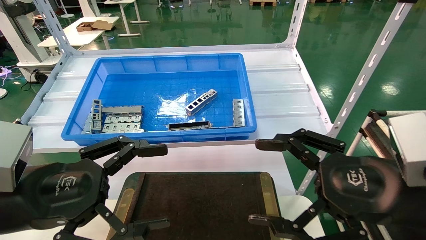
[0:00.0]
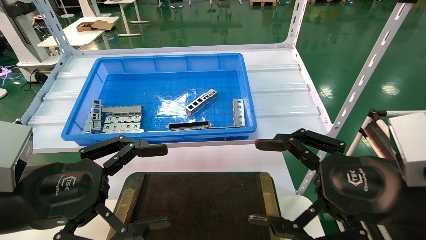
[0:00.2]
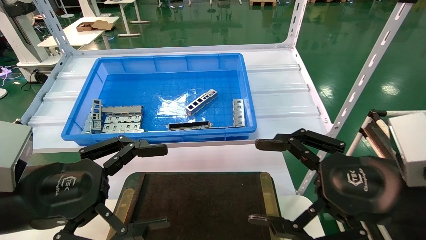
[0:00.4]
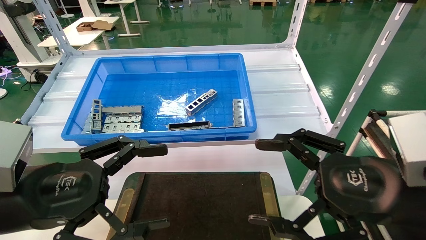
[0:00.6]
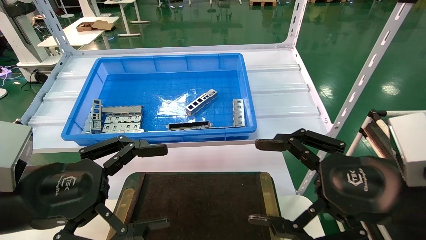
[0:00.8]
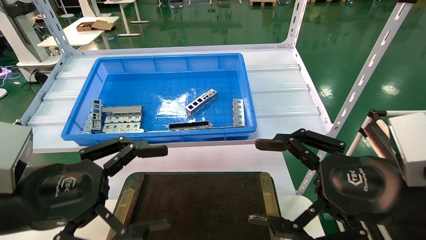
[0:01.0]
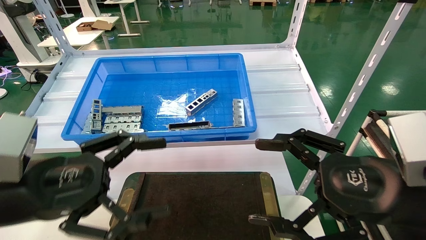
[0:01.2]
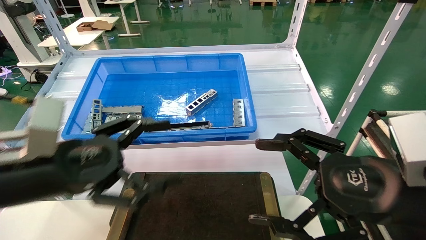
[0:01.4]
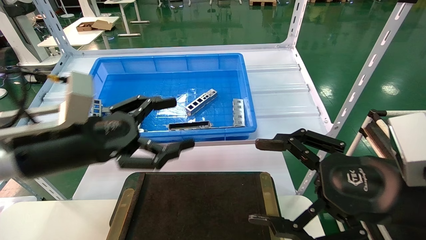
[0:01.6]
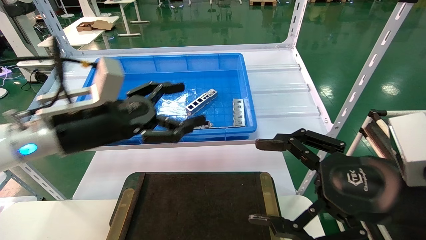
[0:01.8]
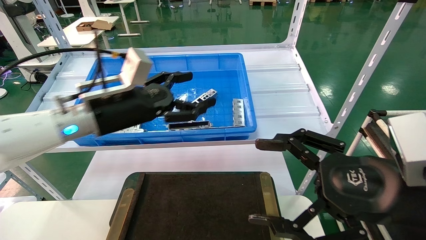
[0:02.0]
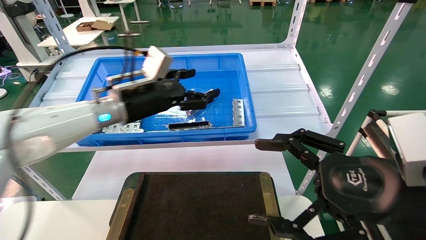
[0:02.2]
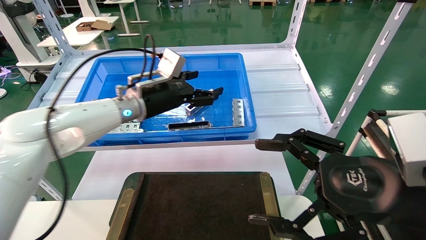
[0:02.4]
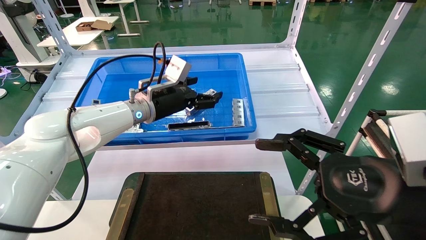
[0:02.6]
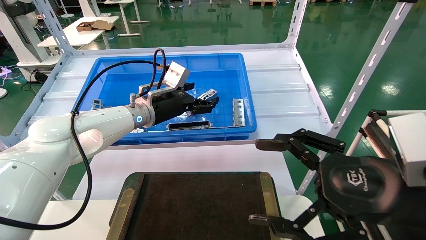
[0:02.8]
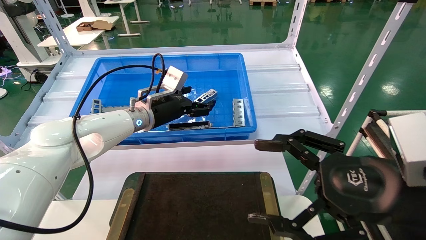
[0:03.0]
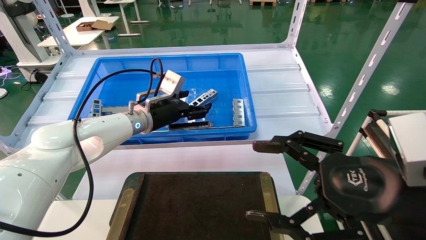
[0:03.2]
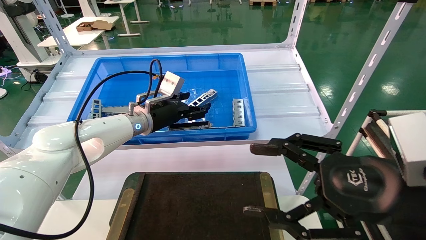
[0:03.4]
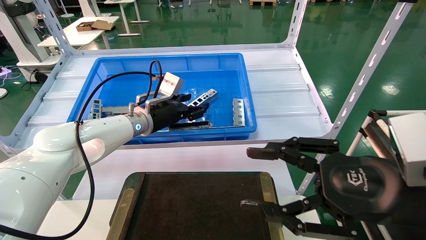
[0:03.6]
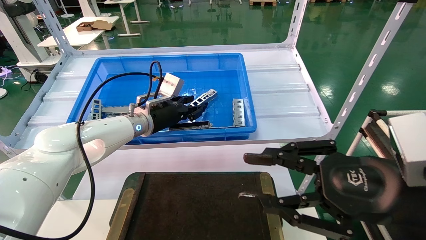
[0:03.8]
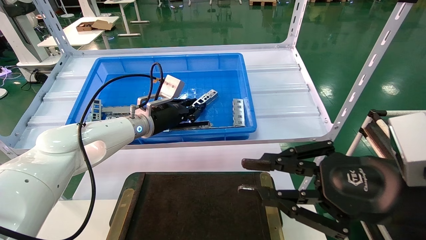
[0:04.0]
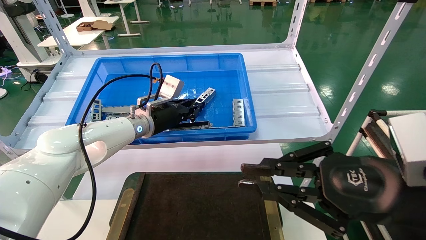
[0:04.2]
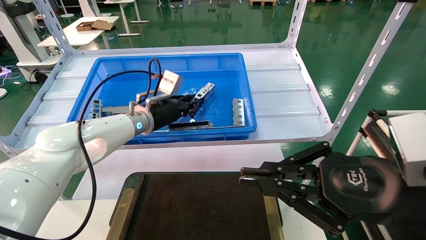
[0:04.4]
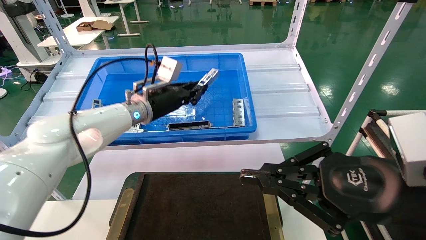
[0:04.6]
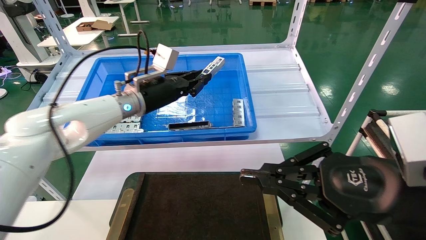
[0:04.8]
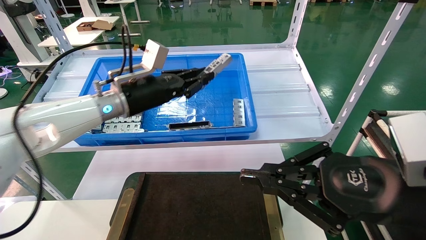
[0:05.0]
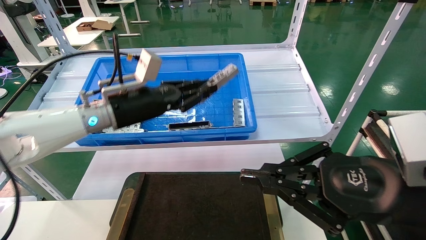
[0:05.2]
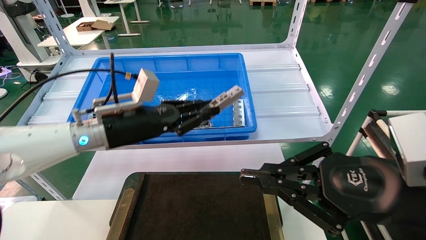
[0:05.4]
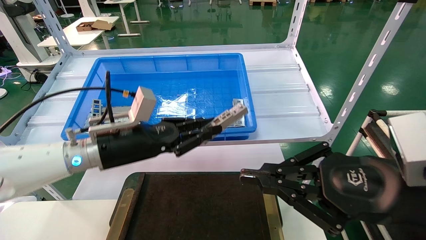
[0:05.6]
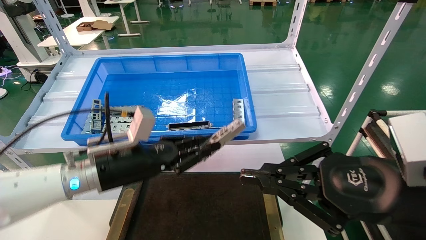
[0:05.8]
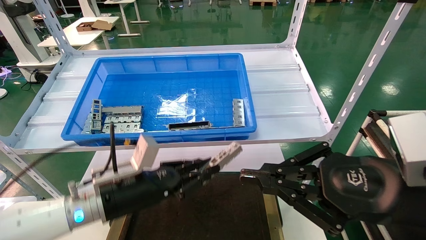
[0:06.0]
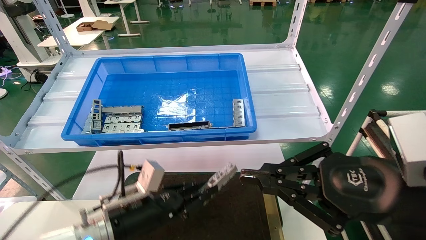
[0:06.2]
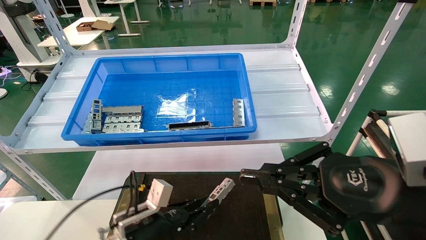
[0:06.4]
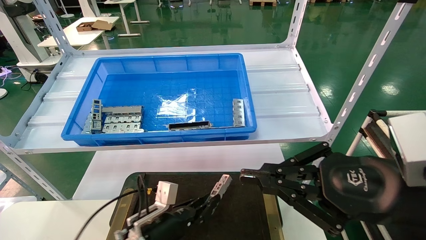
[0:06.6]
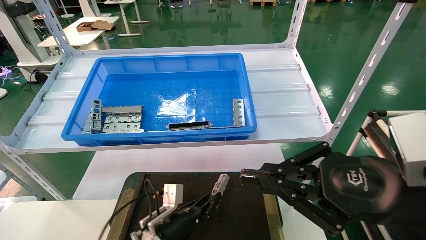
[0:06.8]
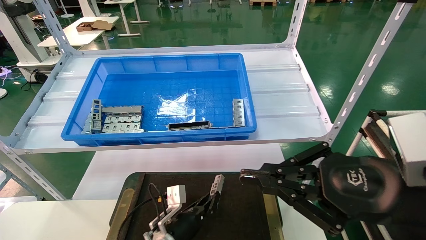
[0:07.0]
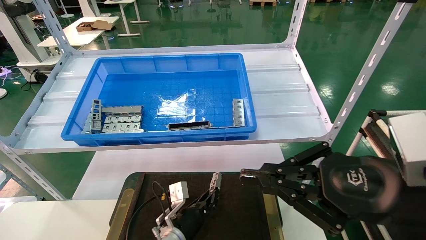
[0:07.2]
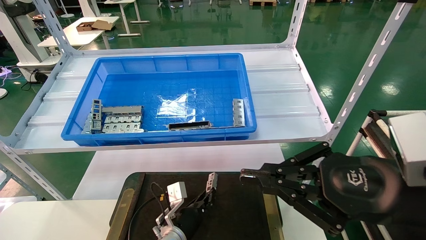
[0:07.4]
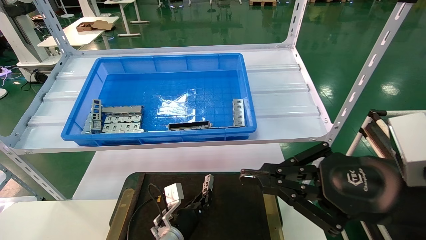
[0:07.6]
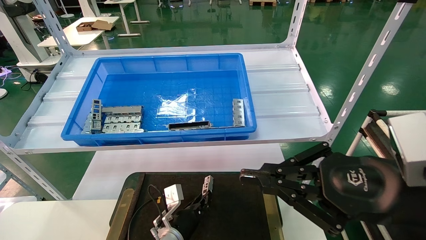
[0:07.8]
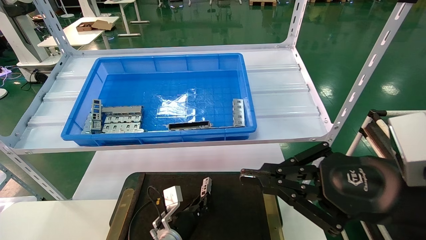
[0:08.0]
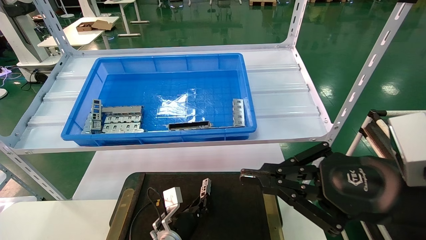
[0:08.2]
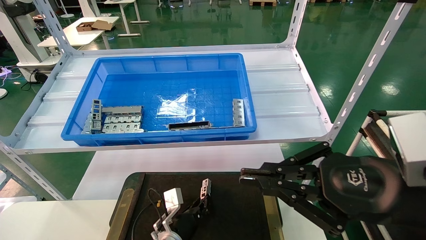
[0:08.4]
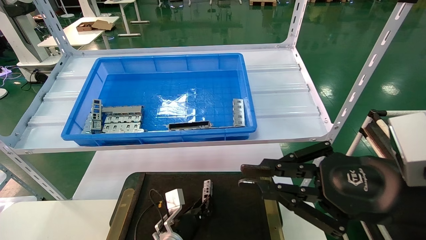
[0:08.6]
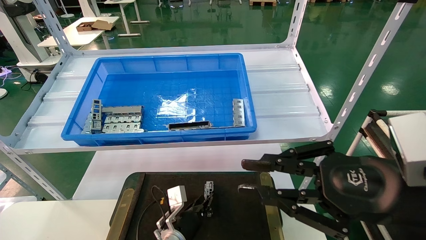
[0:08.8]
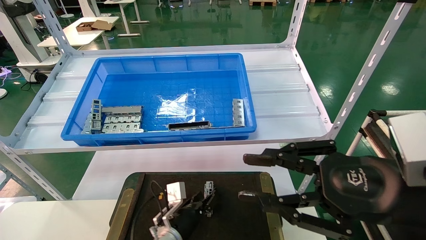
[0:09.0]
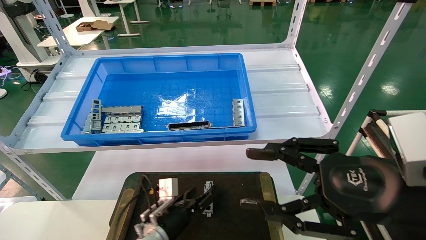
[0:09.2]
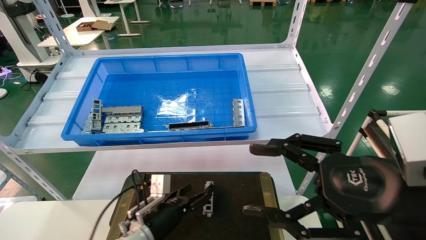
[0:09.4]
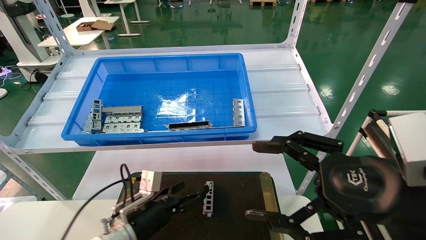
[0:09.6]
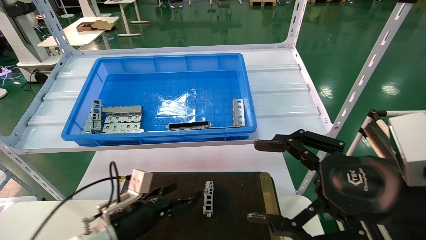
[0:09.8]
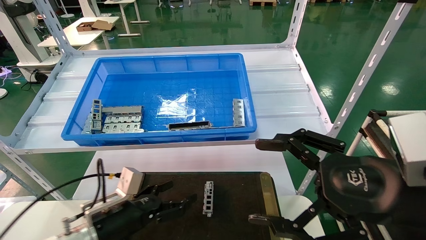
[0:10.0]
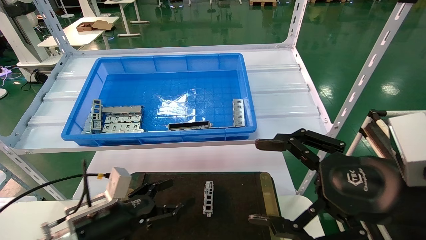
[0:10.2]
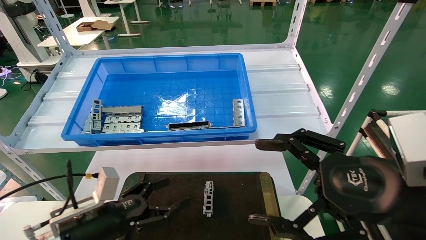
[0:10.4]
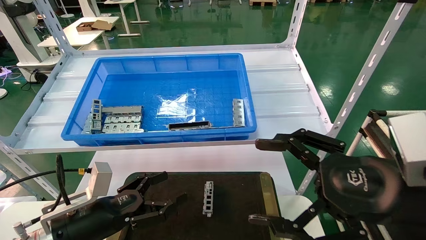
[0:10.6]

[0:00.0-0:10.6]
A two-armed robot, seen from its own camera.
Task of the whole recording: Grasp the part with one hand and place it on the black container.
Step, 0:01.4 to 0:04.0: Pick up the front USB bracket from the feeding area.
Step, 0:04.2 to 0:08.6: Place the front USB bracket into the box.
0:00.0 to 0:01.6: The left gripper heads forward, covering some 10 cm.
0:01.6 to 0:03.0: The left gripper travels forward by about 20 cm.
0:03.0 to 0:04.6: The right gripper closes up, while the left gripper closes up.
0:04.6 to 0:06.0: The left gripper travels backward and downward by approximately 20 cm.
0:06.0 to 0:07.6: The left gripper travels downward, to the right and forward by some 20 cm.
0:07.6 to 0:09.0: There are only small adjustments of the grippers.
0:09.0 to 0:10.6: The left gripper is displaced to the left, upward and backward by approximately 25 cm, and opens, while the right gripper opens up.

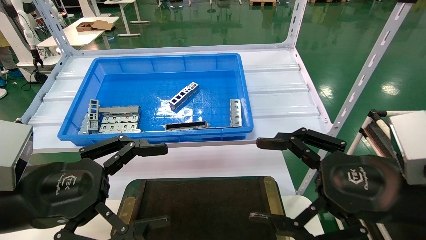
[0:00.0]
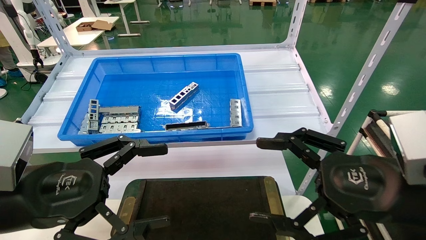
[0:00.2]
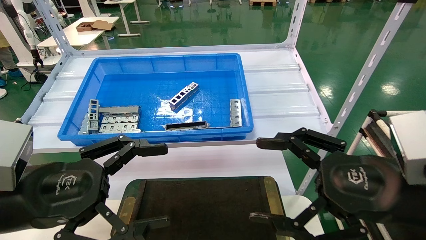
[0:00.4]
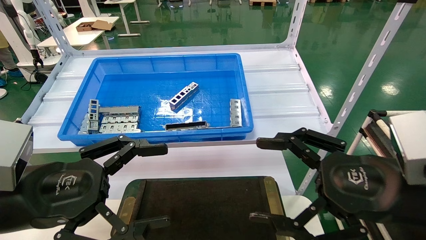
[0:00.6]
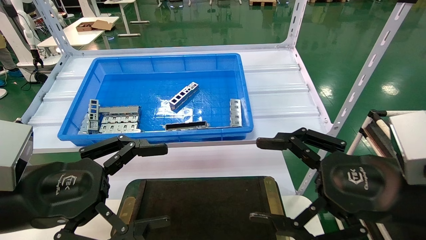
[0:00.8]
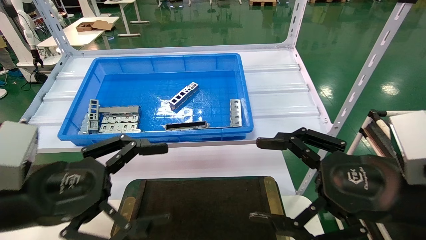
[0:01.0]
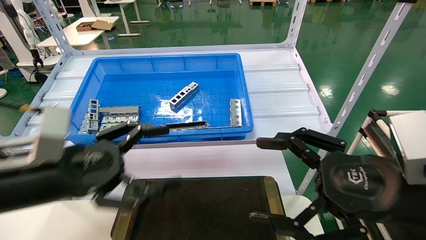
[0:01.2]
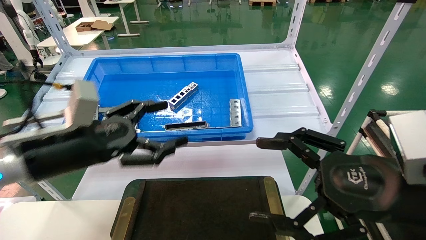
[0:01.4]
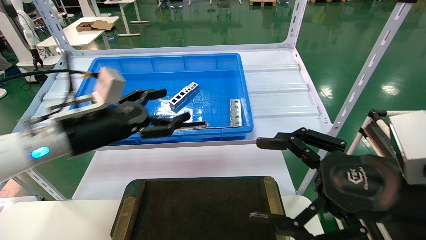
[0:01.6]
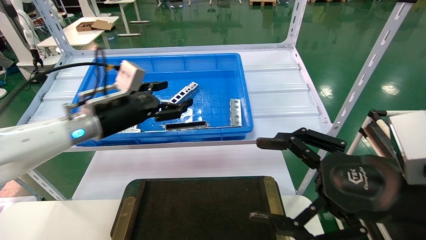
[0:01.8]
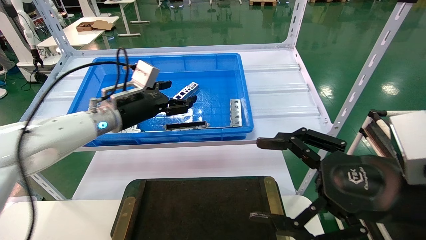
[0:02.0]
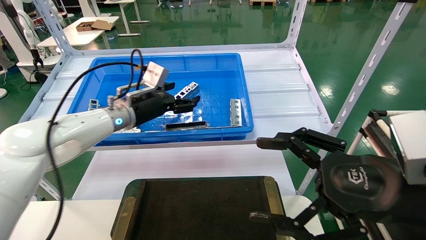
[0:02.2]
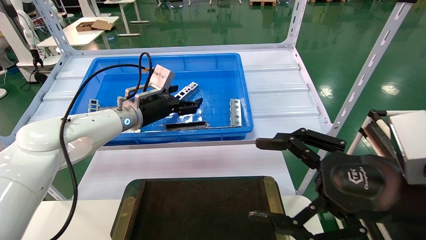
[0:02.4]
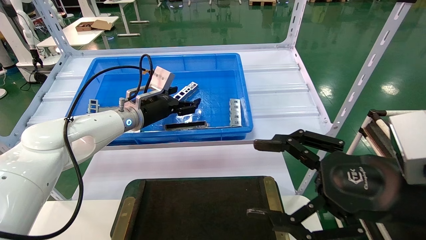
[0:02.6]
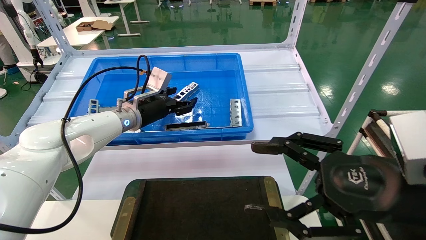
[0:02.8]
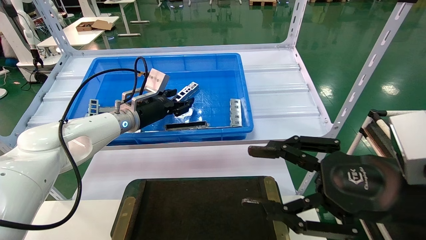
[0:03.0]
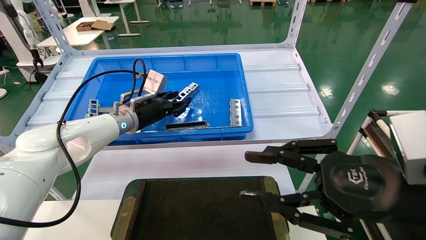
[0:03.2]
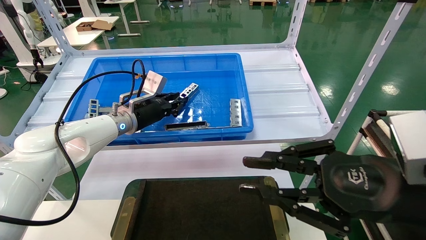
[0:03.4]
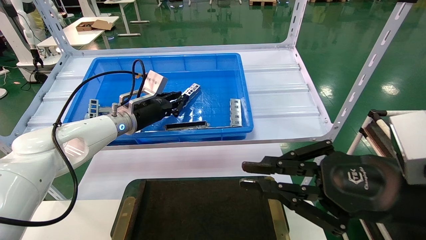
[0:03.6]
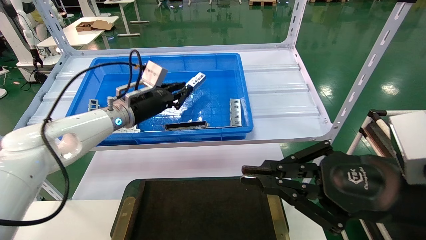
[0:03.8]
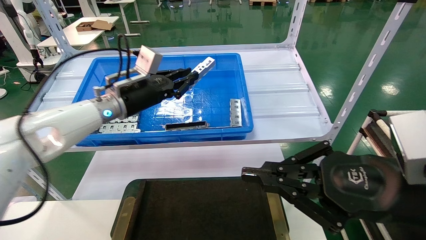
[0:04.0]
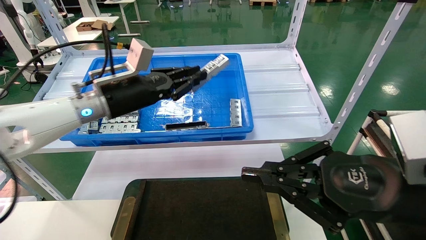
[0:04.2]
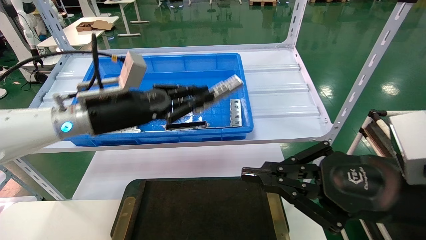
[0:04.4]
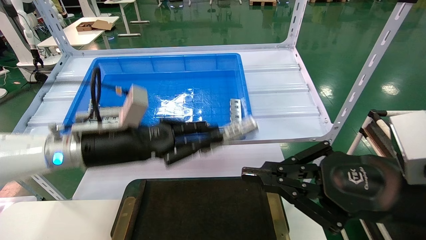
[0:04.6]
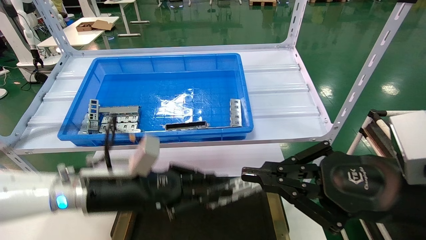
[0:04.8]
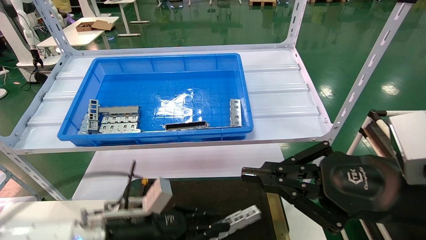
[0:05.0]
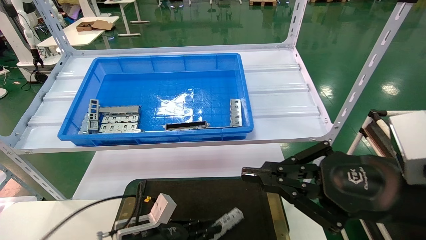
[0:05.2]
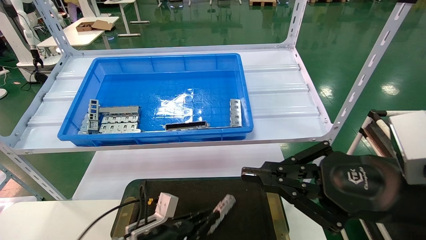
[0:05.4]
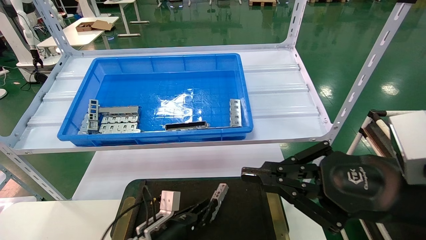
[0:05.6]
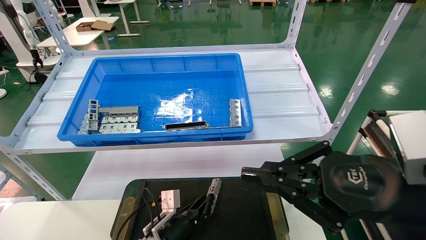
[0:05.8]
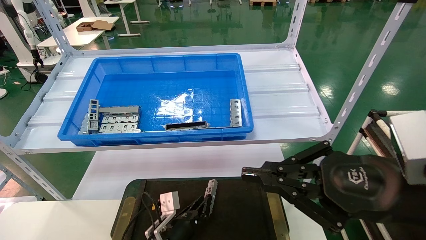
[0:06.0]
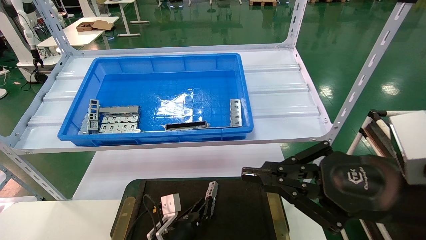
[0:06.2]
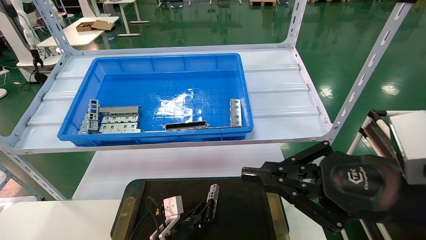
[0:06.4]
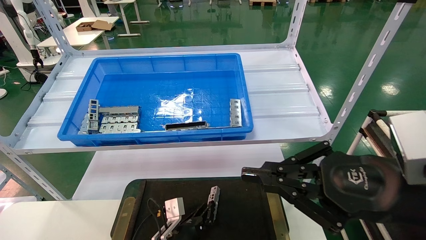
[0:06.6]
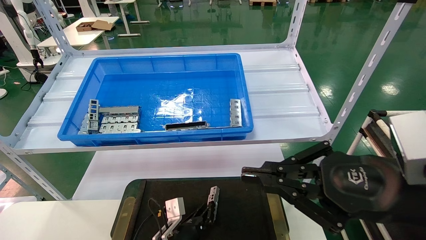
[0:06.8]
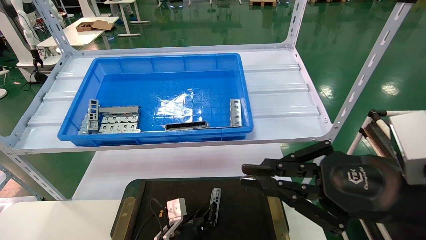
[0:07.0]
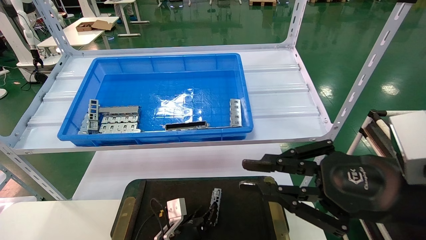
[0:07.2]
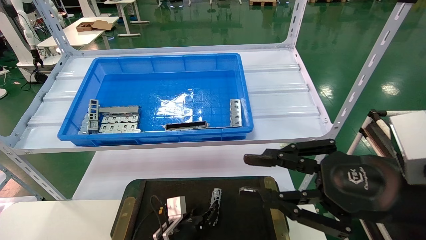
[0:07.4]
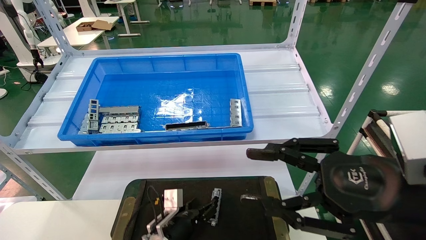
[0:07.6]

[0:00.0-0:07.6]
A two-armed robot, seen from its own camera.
Task of the whole recording: Grasp the part with one hand and place it on the black container.
Step, 0:01.4 to 0:03.2: Pick up the front USB bracket from the feeding area.
Step, 0:03.4 to 0:07.2: Place the front USB bracket into the box.
0:00.0 to 0:01.6: The left gripper shifts roughly 15 cm forward.
0:01.6 to 0:03.0: The left gripper heads forward, covering about 15 cm.
0:03.0 to 0:04.6: The right gripper closes its fingers, while the left gripper goes some 15 cm backward, and closes its fingers.
0:04.6 to 0:06.0: The left gripper moves downward, roughly 30 cm.
0:06.0 to 0:07.6: The right gripper opens. The left gripper opens.
